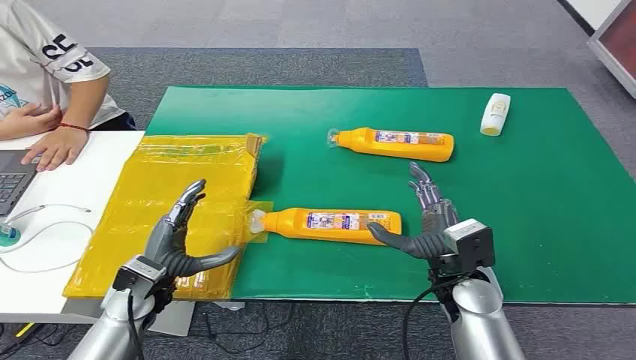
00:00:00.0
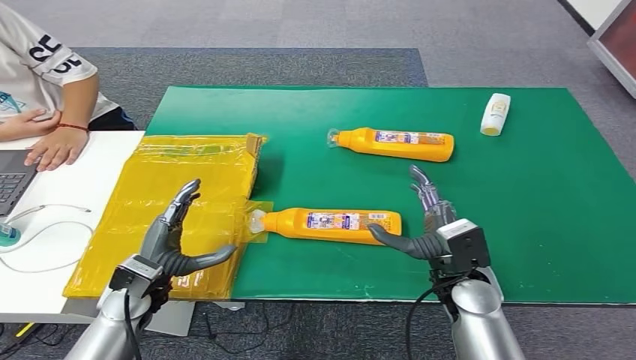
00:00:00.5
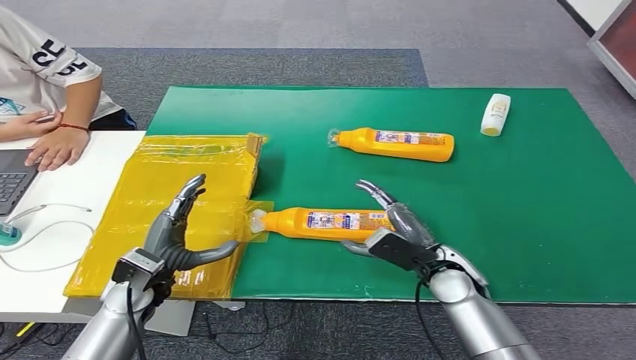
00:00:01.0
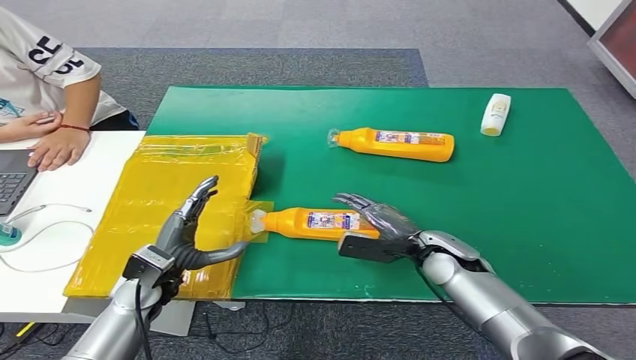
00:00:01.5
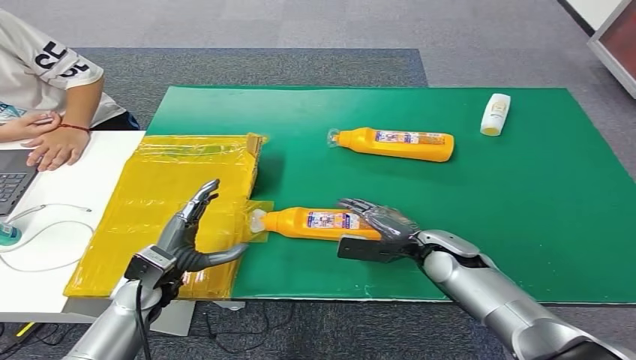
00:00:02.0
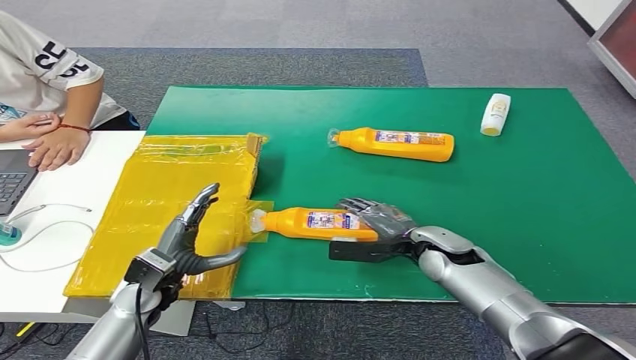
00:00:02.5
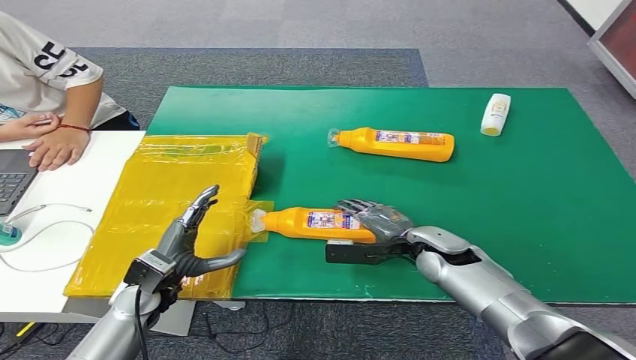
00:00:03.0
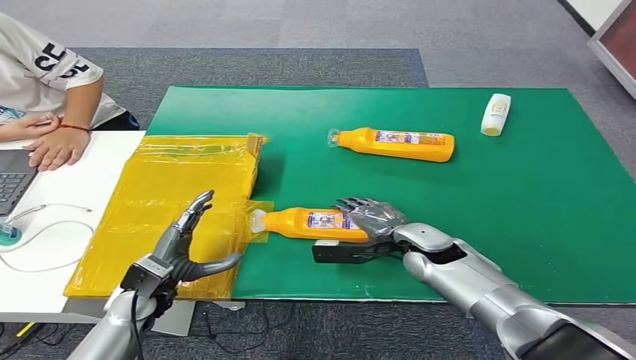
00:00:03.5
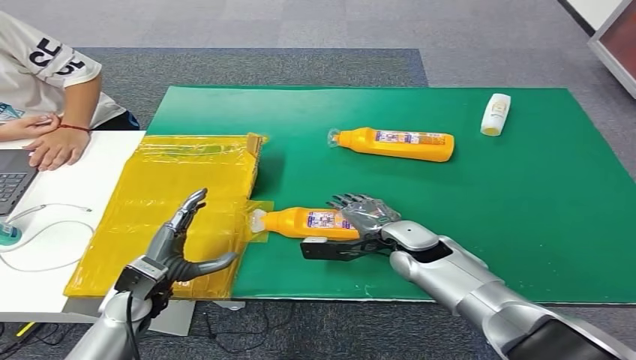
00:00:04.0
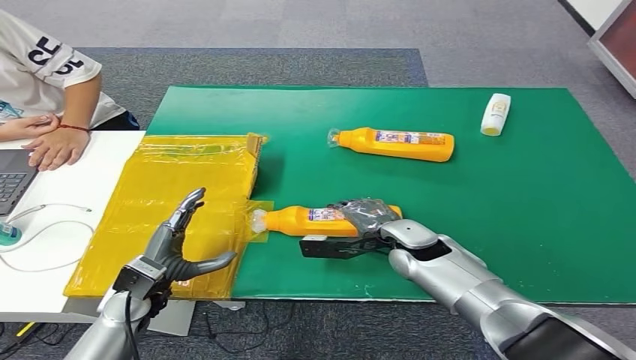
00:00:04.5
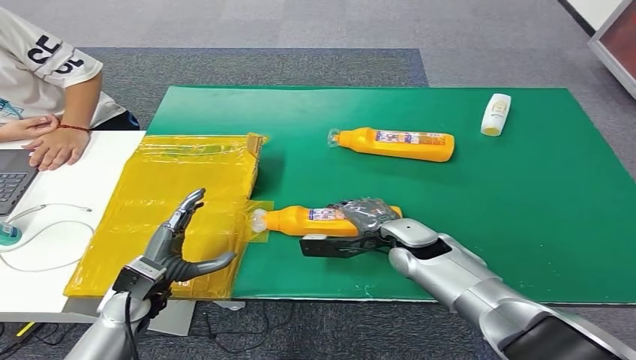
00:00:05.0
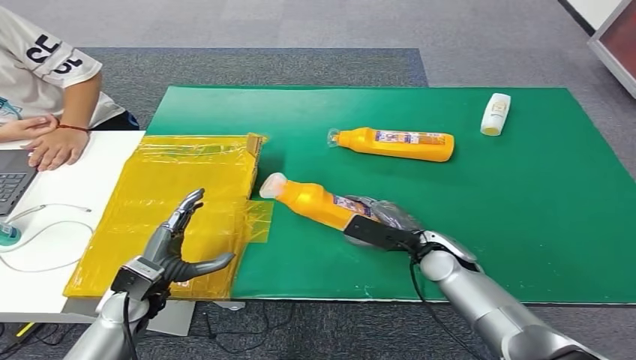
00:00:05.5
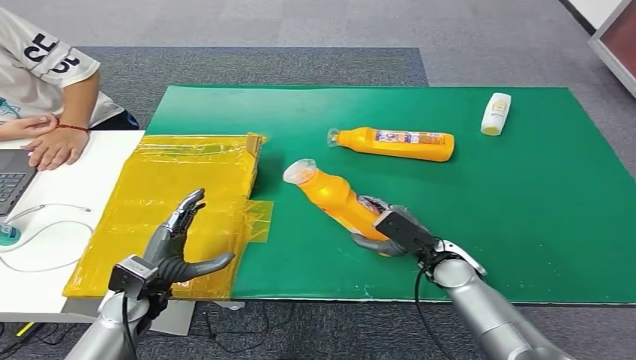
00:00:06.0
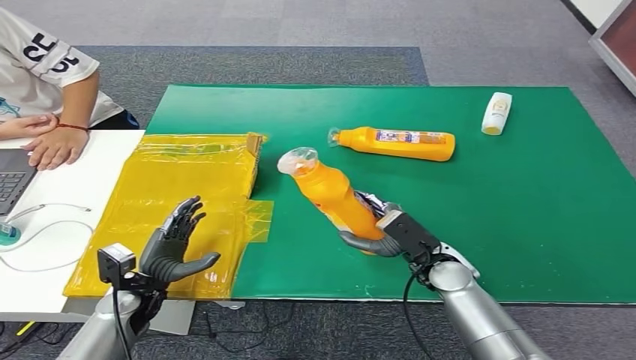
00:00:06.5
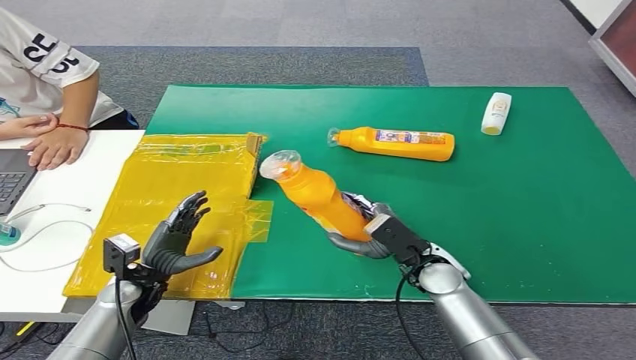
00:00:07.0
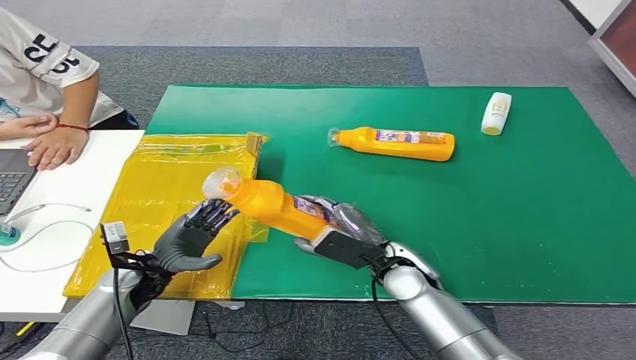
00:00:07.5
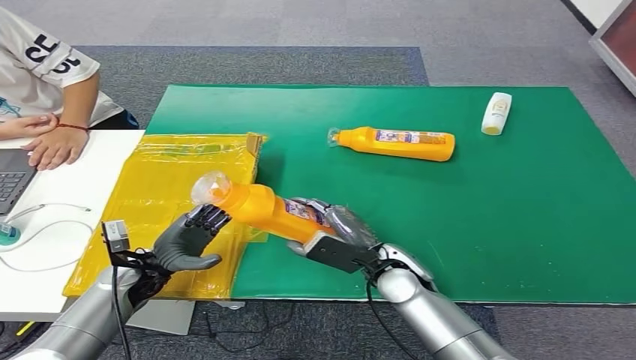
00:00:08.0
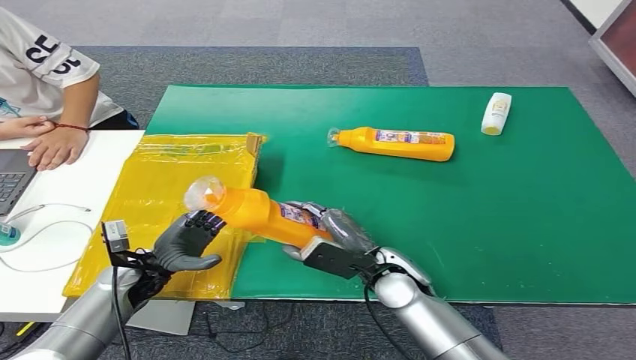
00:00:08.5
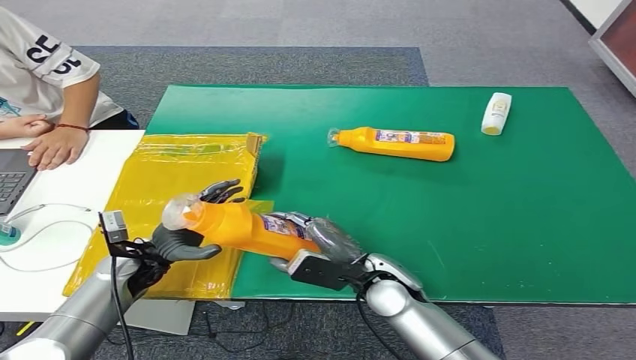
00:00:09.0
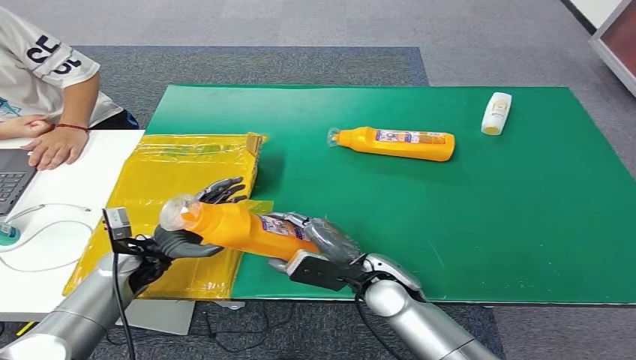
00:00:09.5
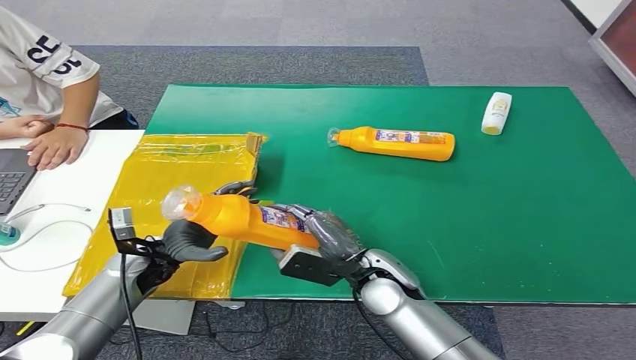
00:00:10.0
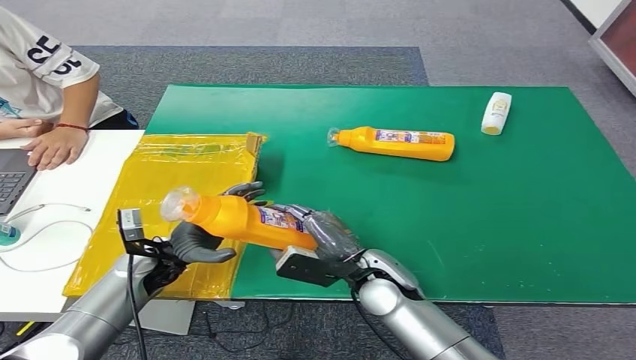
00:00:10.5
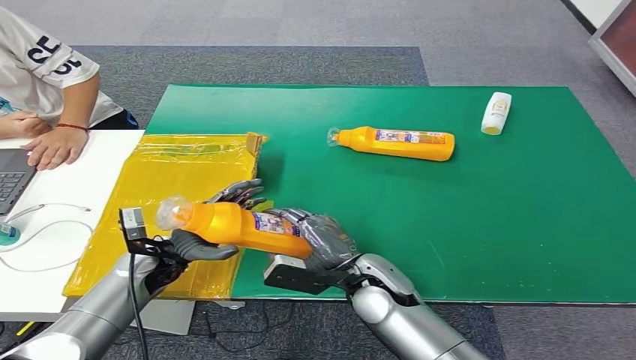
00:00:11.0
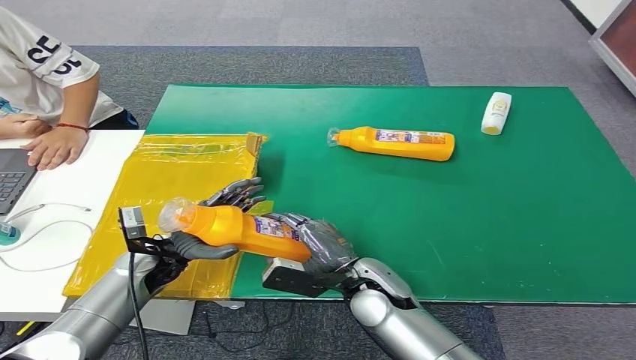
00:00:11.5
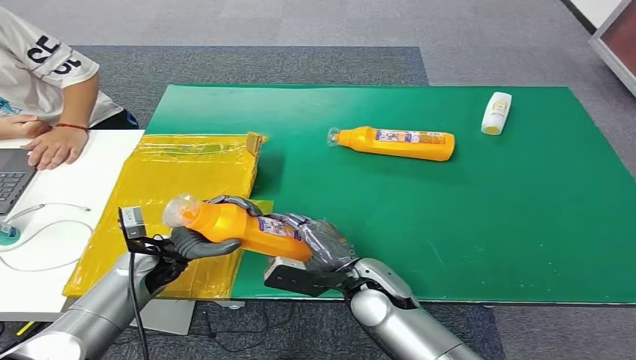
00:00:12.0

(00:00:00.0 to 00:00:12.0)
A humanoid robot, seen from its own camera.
Step, 00:00:00.0 - 00:00:06.0: Pick up the bottle from the table.
00:00:02.0 - 00:00:04.0: The right hand travels to the left by approximately 5 cm.
00:00:04.0 - 00:00:06.0: The right hand is displaced to the right by about 5 cm.
00:00:06.0 - 00:00:08.0: The left hand changes place by roughly 5 cm, while the right hand is displaced to the left by some 10 cm.
00:00:08.0 - 00:00:12.0: The hands stay close to where they were, moving slightly.

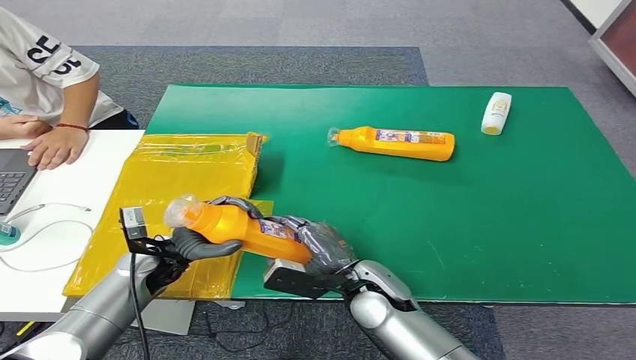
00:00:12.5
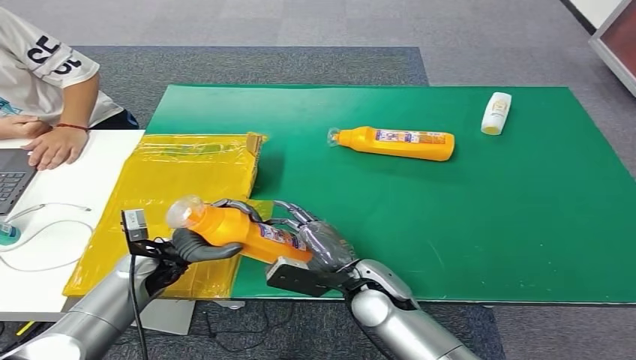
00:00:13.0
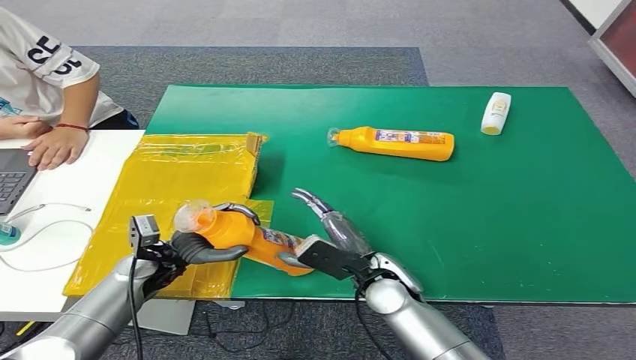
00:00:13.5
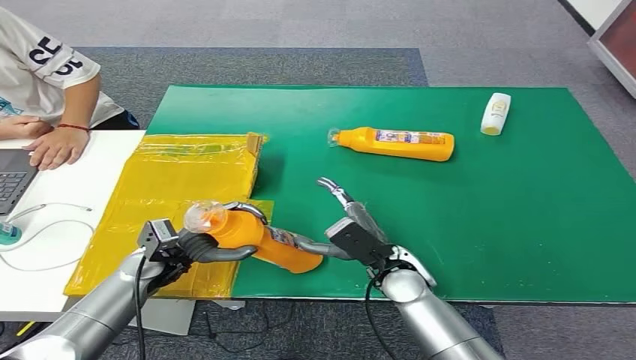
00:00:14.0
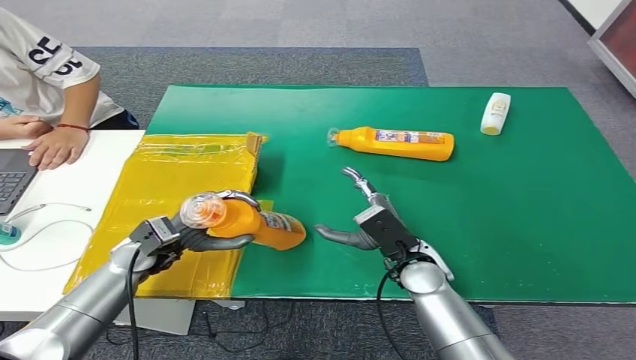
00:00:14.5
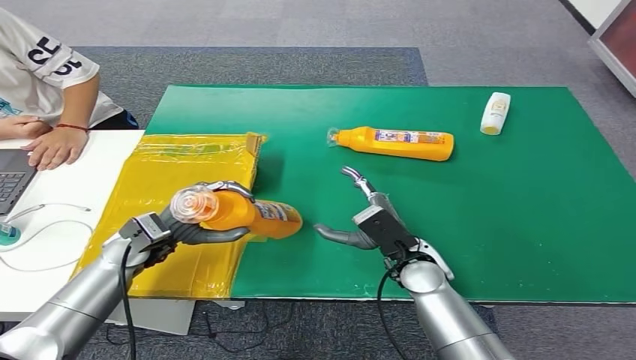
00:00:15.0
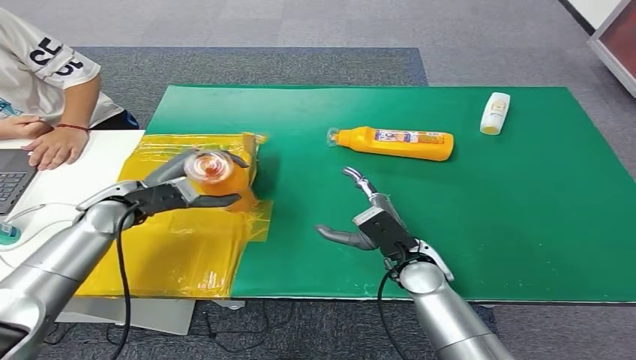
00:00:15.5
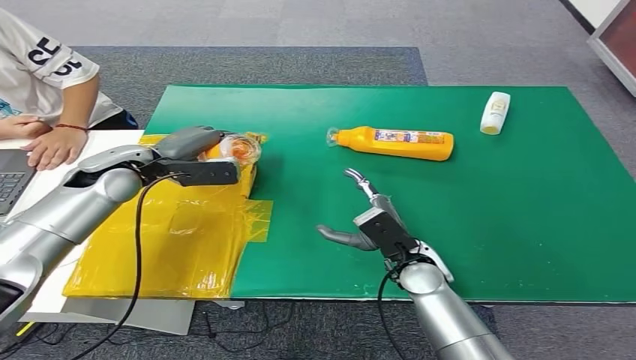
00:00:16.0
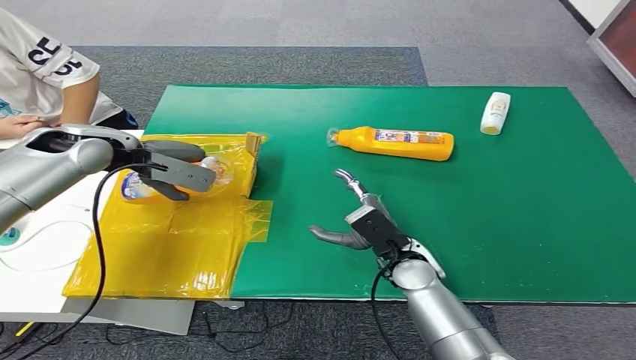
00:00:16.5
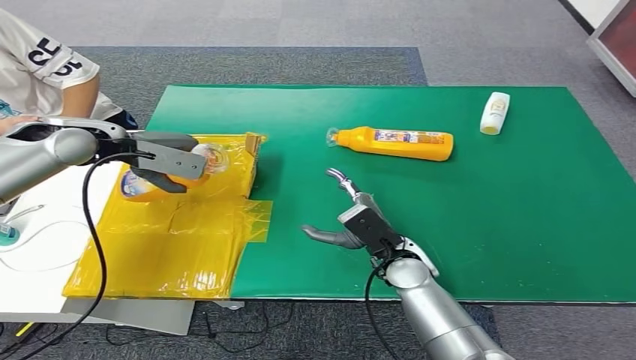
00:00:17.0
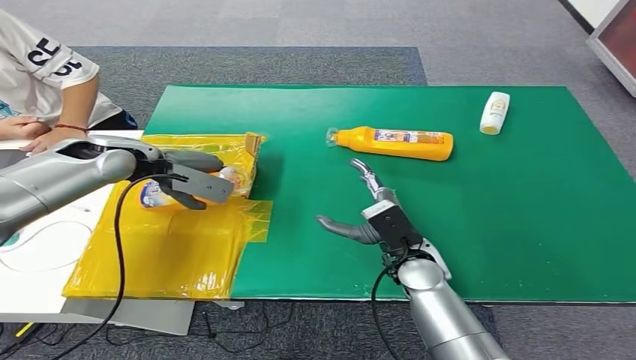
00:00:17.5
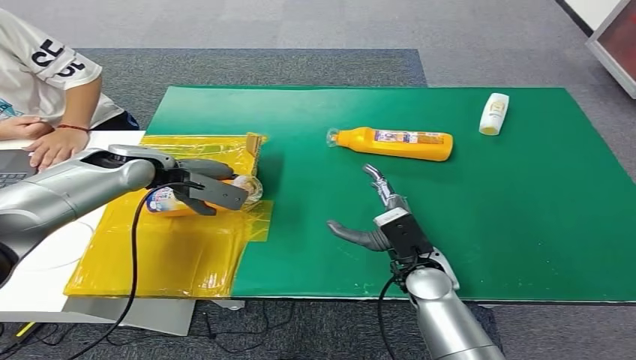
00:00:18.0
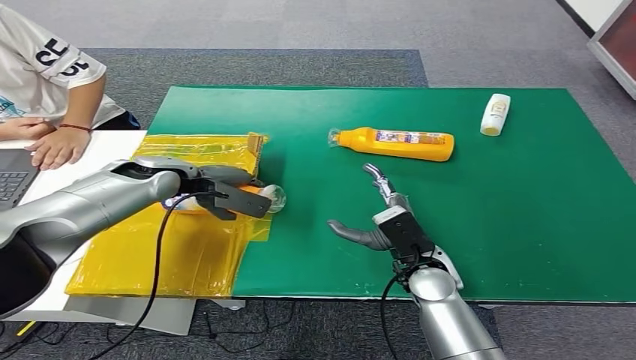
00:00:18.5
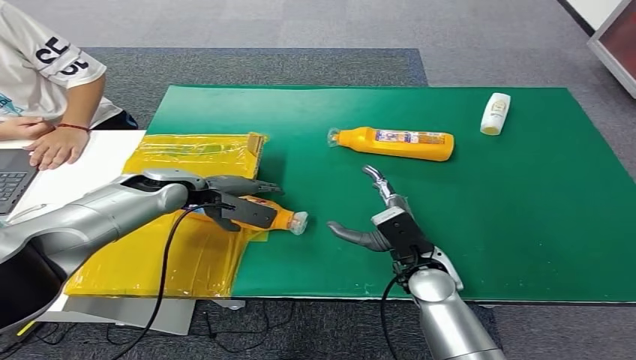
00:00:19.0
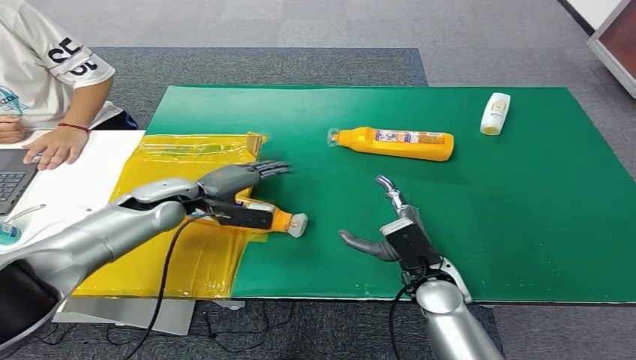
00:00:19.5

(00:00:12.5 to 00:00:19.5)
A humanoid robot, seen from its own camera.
Step, 00:00:12.5 - 00:00:19.5: Turn the bottle to the front side.
00:00:12.5 - 00:00:14.5: The right hand moves to the right, about 5 cm.
00:00:14.5 - 00:00:16.0: The left hand goes approximately 15 cm upward and forward.

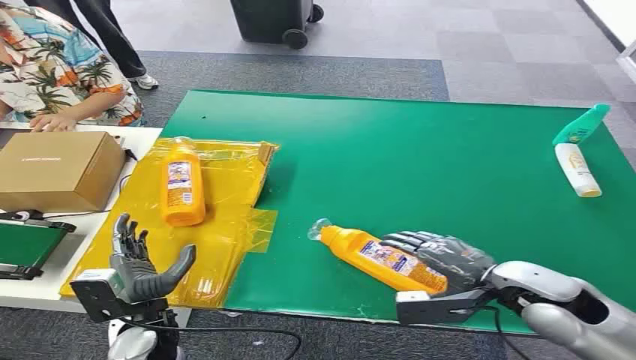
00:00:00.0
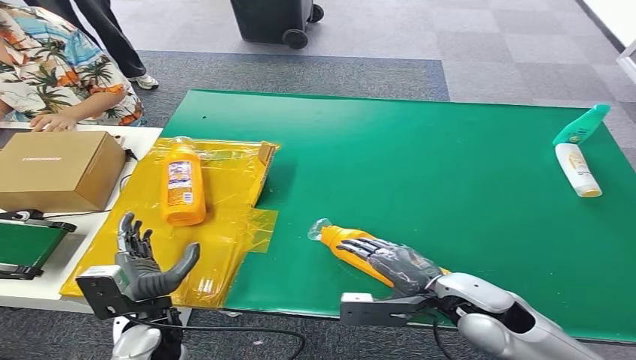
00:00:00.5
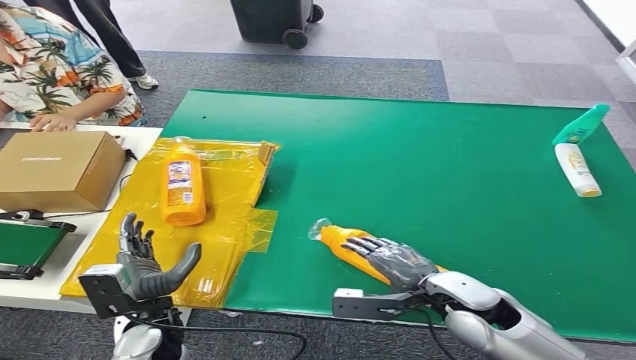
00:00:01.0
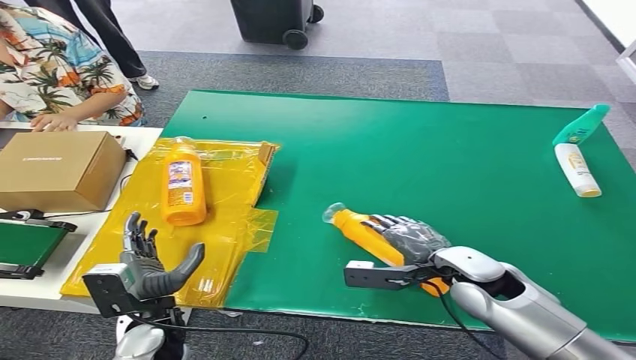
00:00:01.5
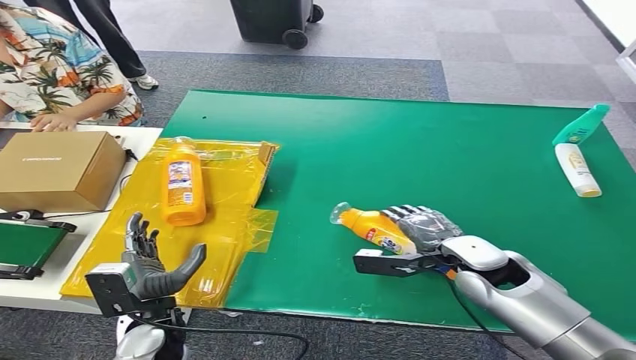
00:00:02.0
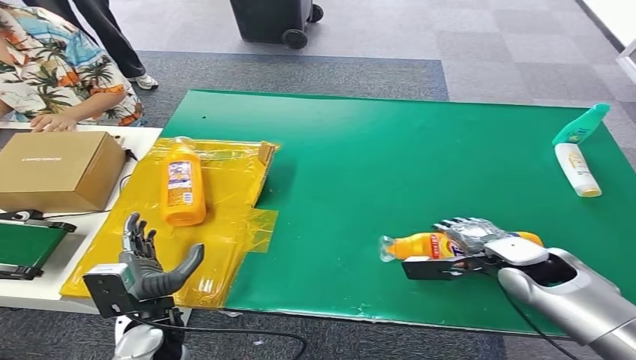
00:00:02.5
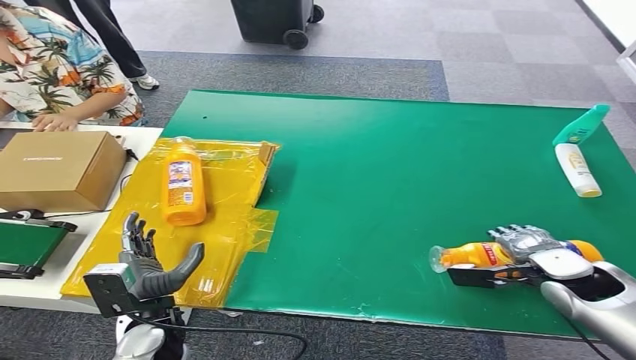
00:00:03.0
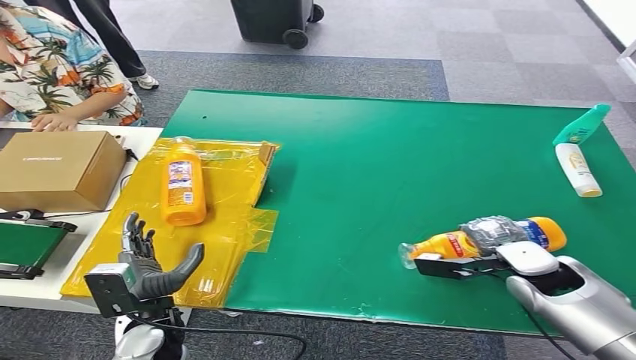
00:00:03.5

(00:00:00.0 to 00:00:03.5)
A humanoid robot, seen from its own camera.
00:00:02.0 - 00:00:03.5: The right hand moves to the right, roughly 10 cm.
